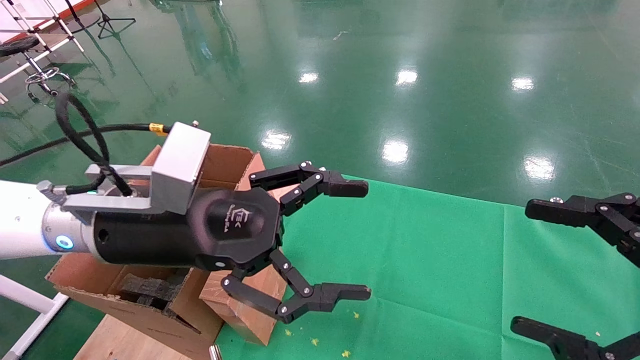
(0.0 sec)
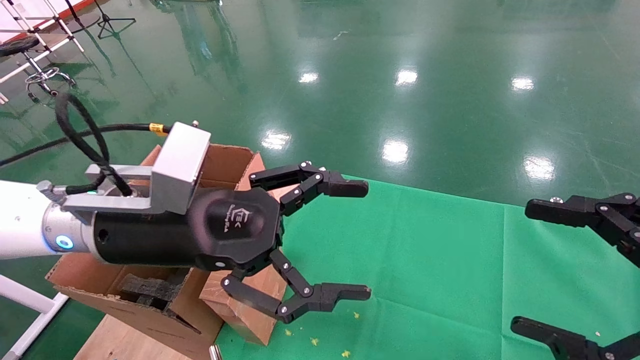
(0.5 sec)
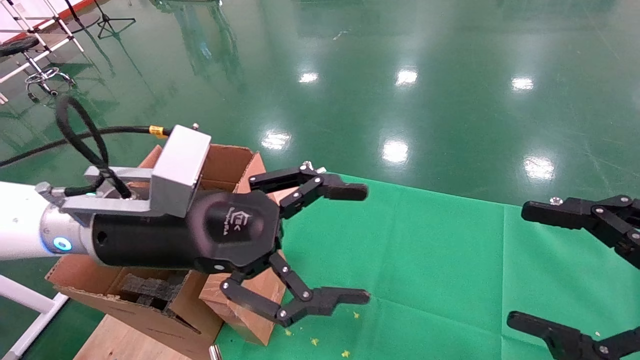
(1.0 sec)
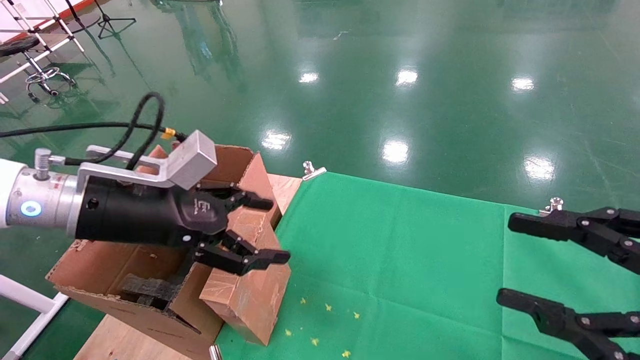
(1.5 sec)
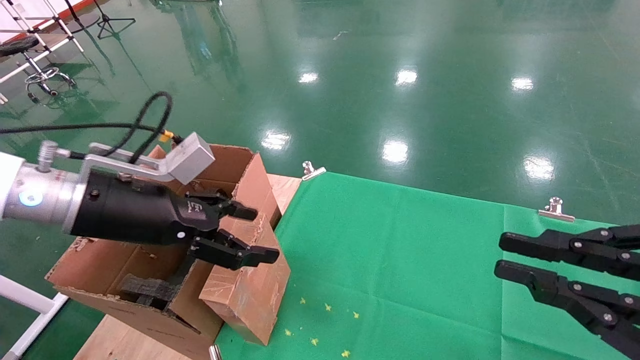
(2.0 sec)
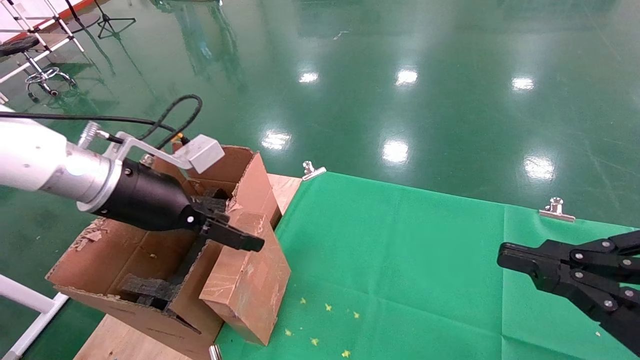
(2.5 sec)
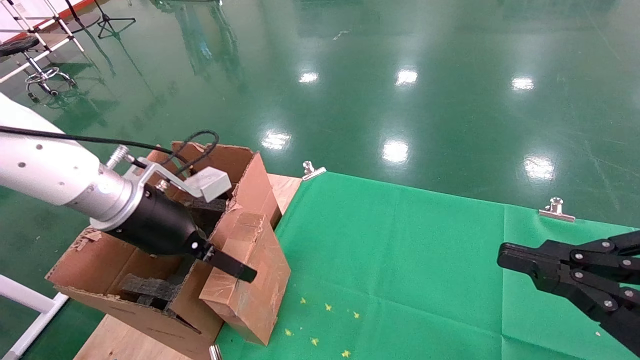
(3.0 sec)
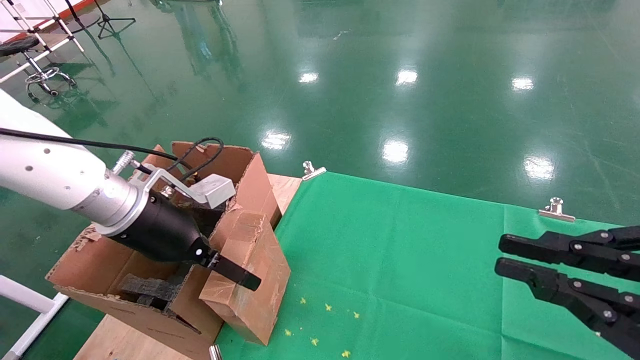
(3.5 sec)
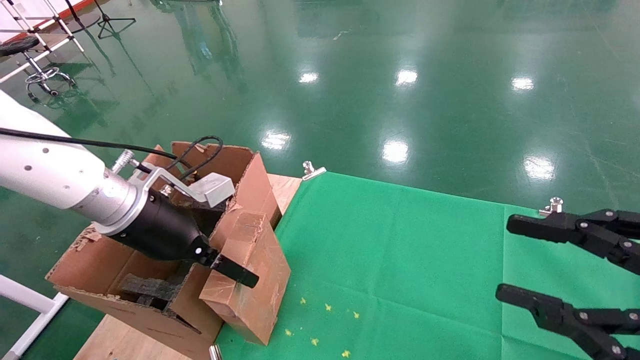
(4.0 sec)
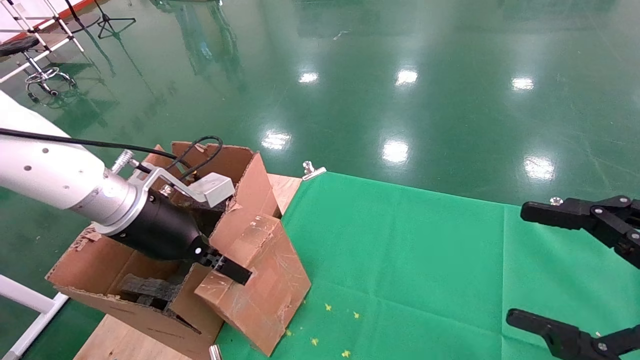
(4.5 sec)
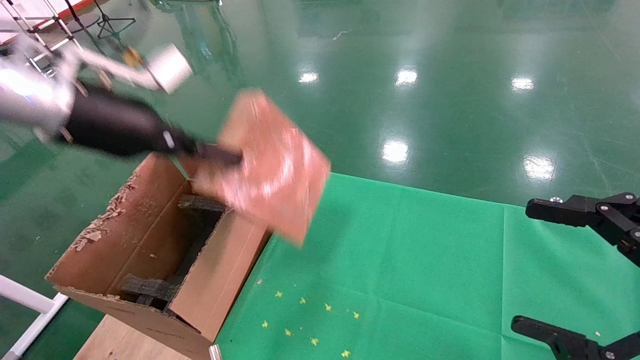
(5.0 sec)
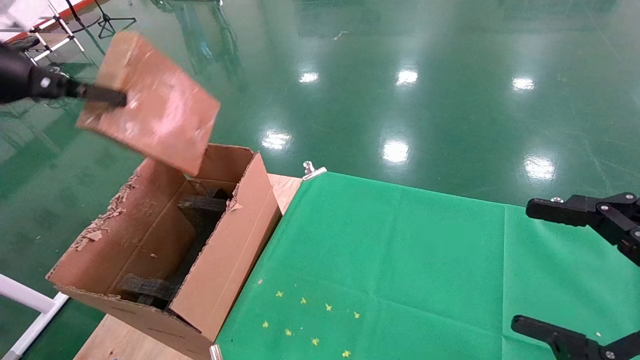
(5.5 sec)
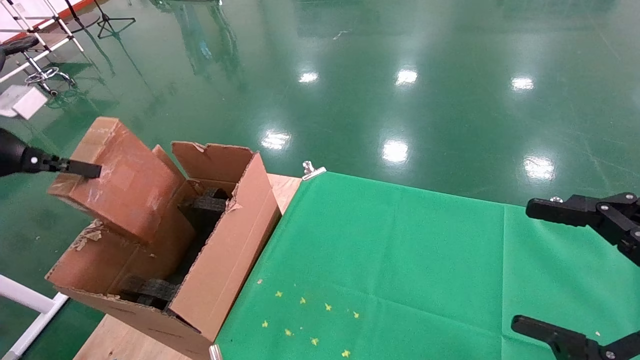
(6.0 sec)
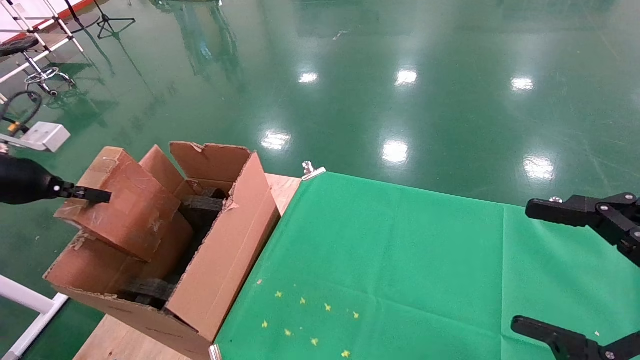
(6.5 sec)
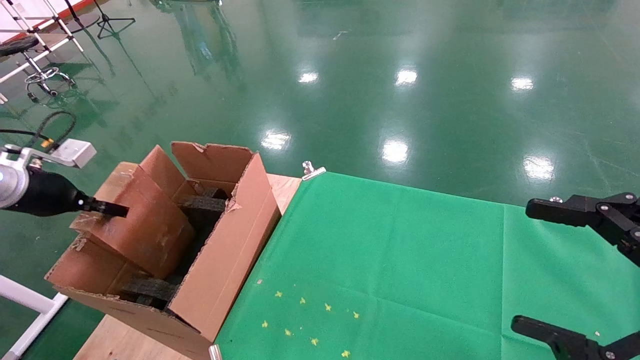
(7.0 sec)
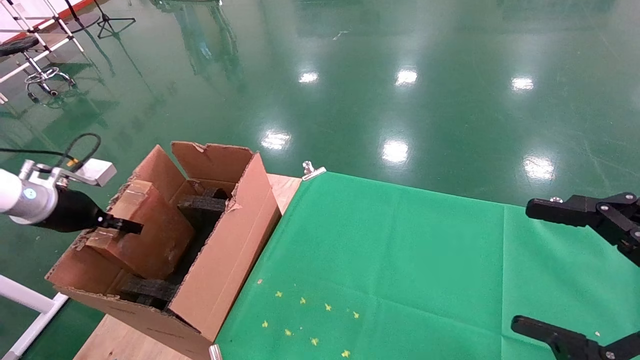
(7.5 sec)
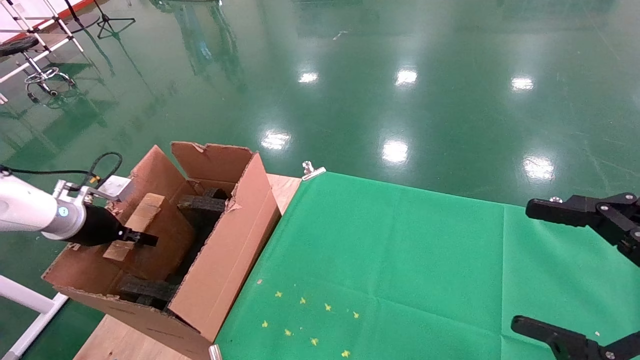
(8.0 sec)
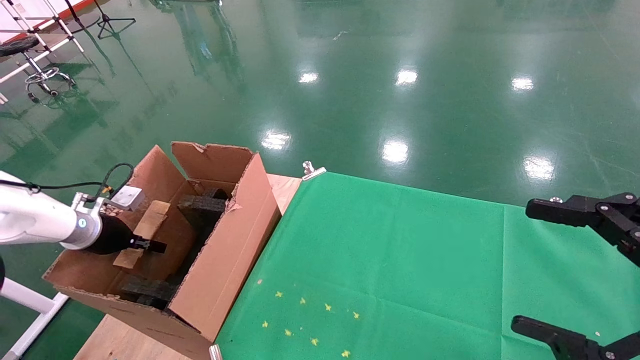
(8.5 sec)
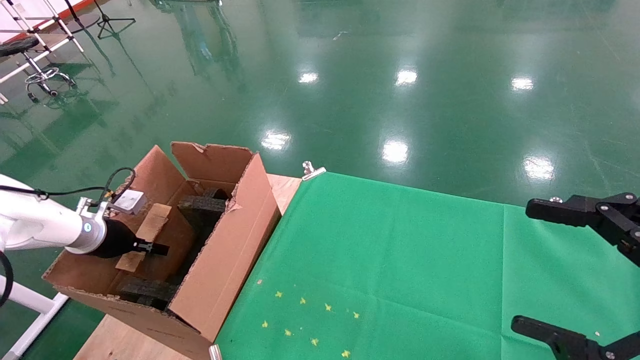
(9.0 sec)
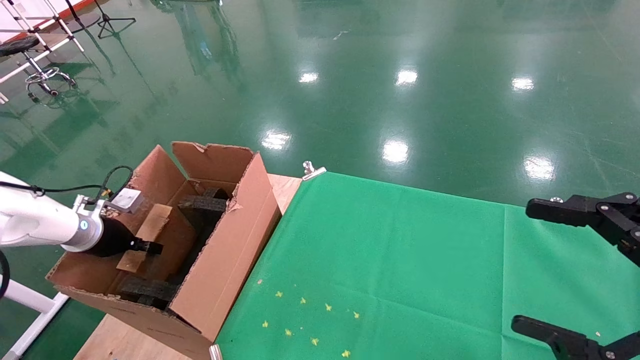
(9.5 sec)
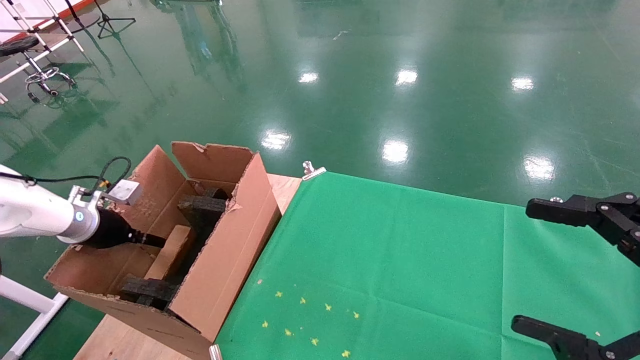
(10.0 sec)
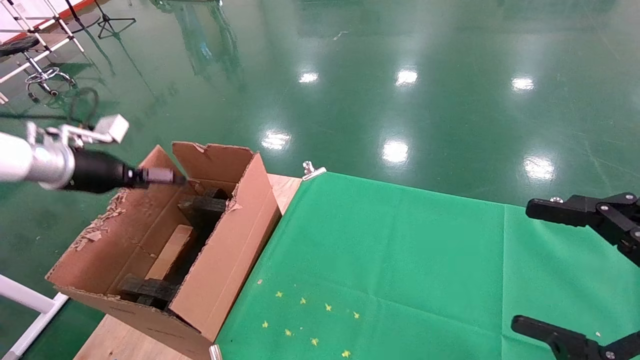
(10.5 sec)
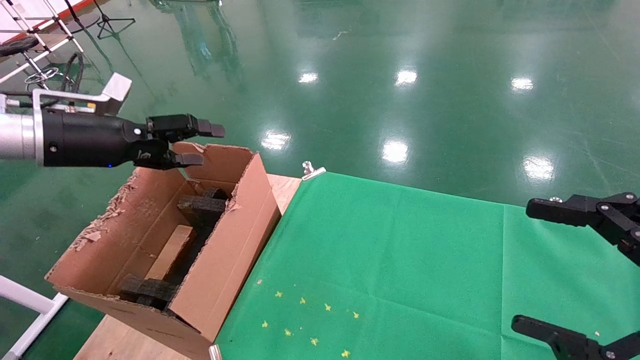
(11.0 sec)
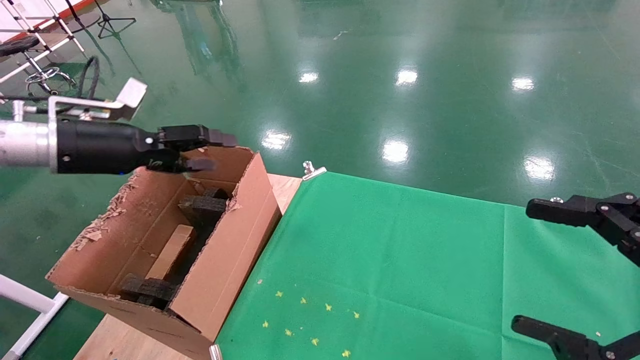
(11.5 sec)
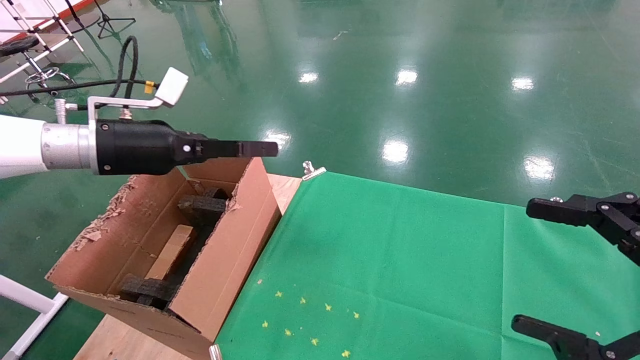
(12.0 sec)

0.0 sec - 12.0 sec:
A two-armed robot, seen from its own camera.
Task of the whole recording: using a robotic arm to pick up a cardboard box and palace it the carton.
Step, 1.5 sec - 4.5 sec: Pick up the mouse and the power cord paper box.
Step, 5.0 sec - 10.0 sec: Place the mouse and the power cord paper box into the container.
0.0 sec - 2.0 sec: The left gripper shifts roughly 10 cm to the left; the right gripper closes.
4.0 sec - 6.0 sec: The left gripper moves to the left, about 25 cm, and closes up. Meanwhile the right gripper opens.
6.0 sec - 8.0 sec: The left gripper goes roughly 20 cm downward and forward.
8.0 sec - 10.0 sec: The left gripper opens its fingers.
10.0 sec - 12.0 sec: The left gripper shifts some 20 cm to the right and upward, and opens.

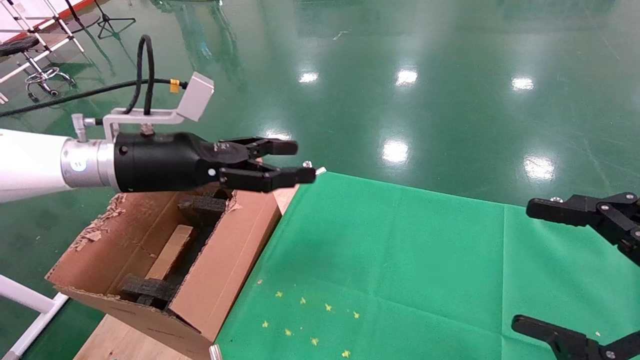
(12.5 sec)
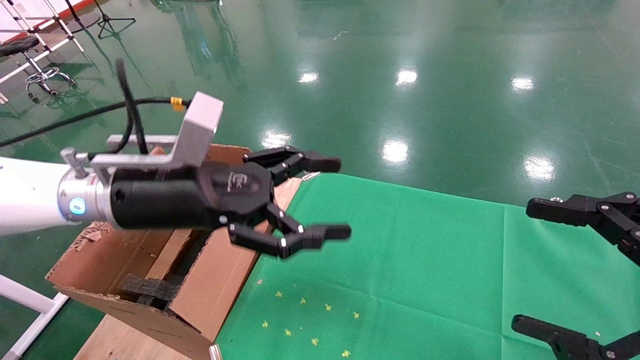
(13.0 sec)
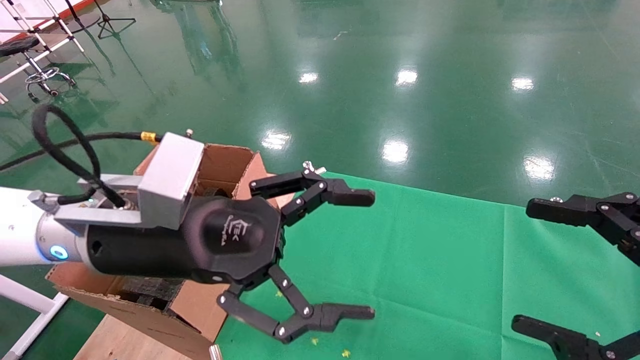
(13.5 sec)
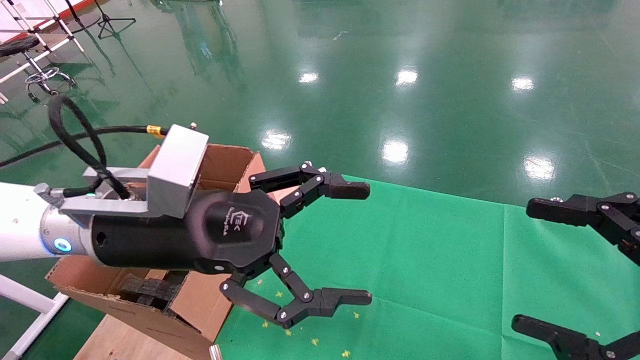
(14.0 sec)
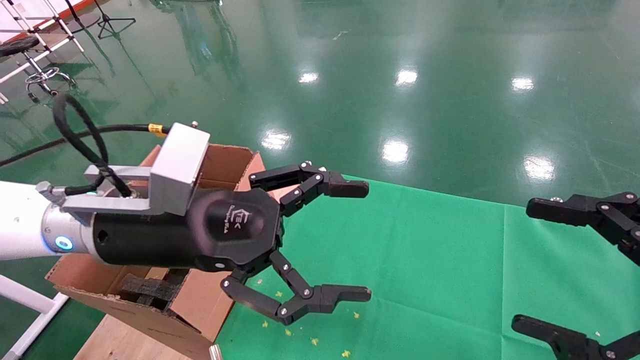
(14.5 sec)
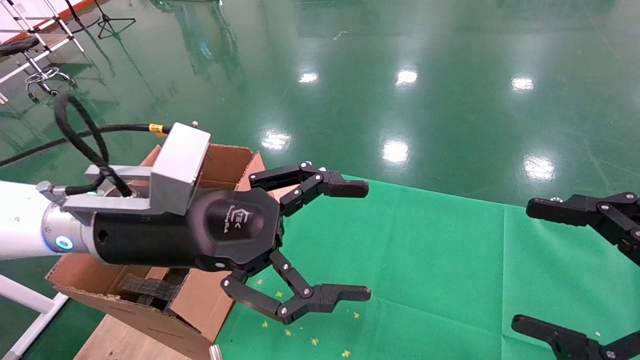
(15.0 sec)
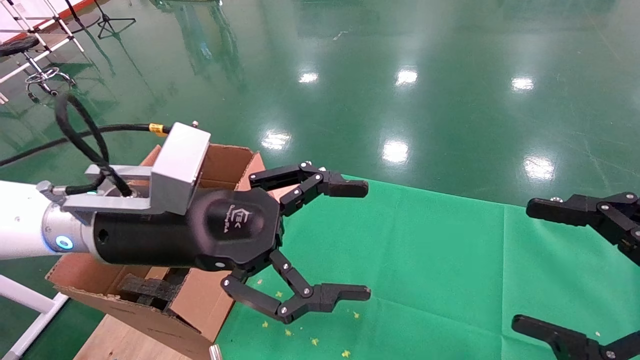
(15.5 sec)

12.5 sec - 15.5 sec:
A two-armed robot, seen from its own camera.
Task of the whole recording: using a robotic arm to pick up a cardboard box and palace it the carton.
12.5 sec - 14.0 sec: The left gripper shifts roughly 10 cm backward and to the right.
14.0 sec - 15.5 sec: Neither gripper changes place.
